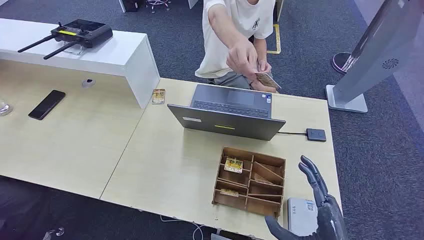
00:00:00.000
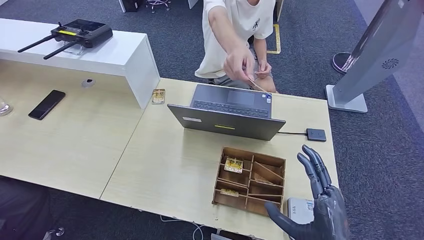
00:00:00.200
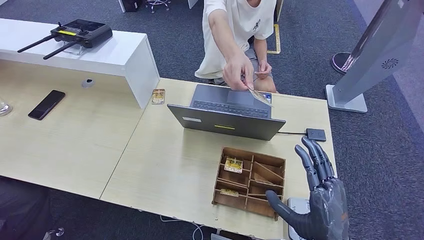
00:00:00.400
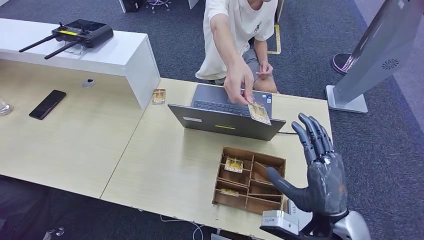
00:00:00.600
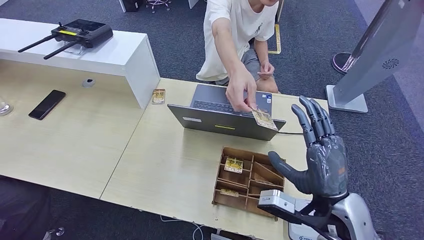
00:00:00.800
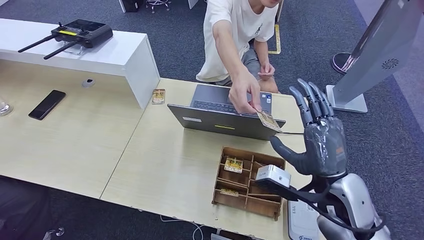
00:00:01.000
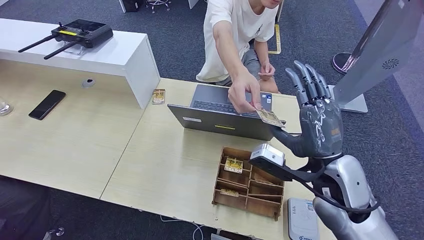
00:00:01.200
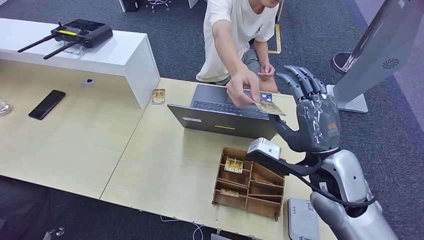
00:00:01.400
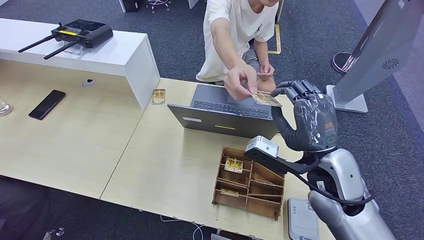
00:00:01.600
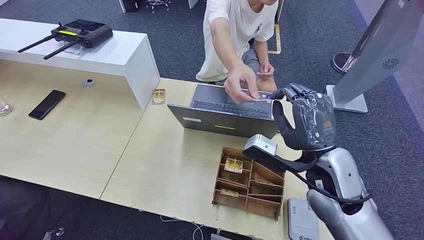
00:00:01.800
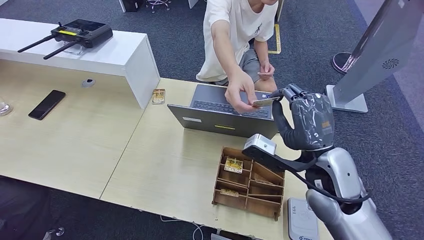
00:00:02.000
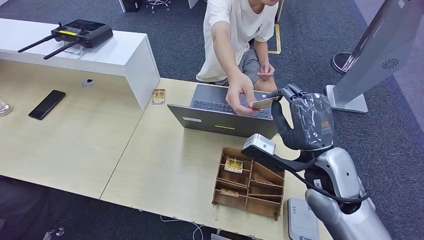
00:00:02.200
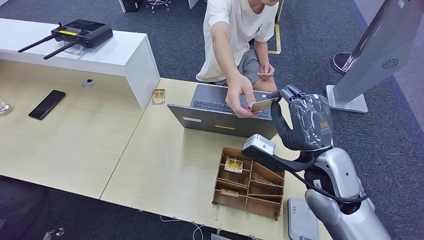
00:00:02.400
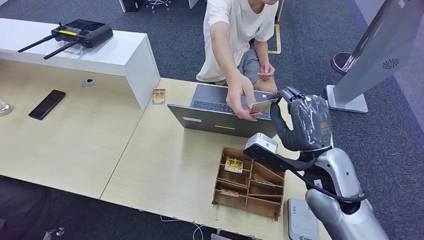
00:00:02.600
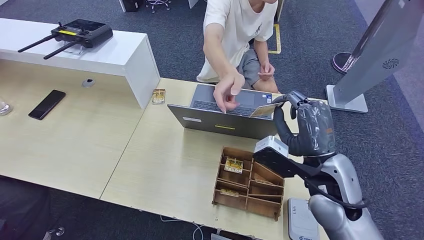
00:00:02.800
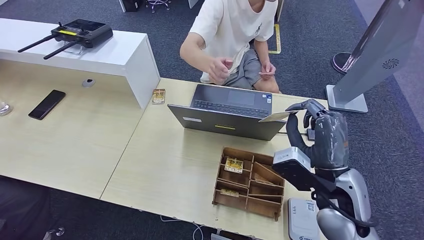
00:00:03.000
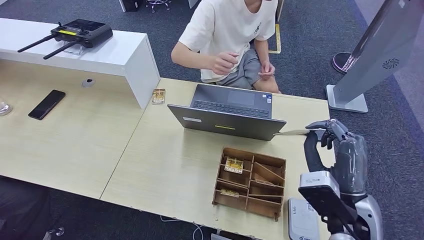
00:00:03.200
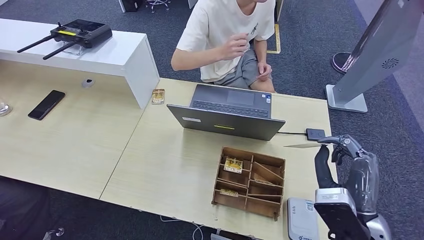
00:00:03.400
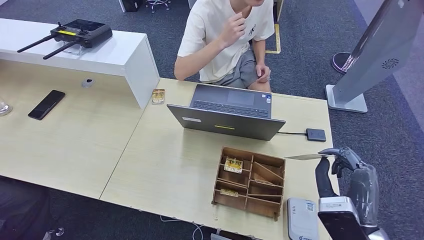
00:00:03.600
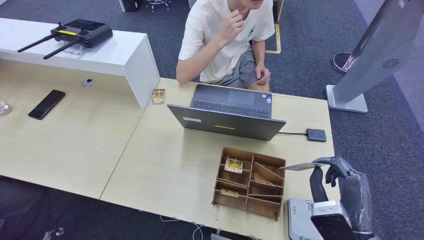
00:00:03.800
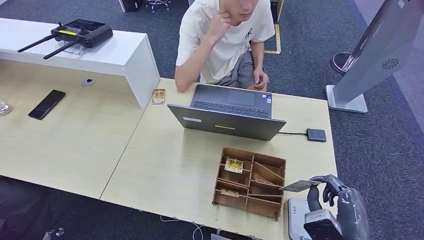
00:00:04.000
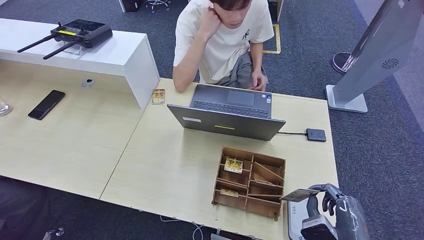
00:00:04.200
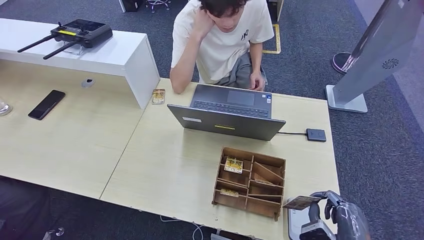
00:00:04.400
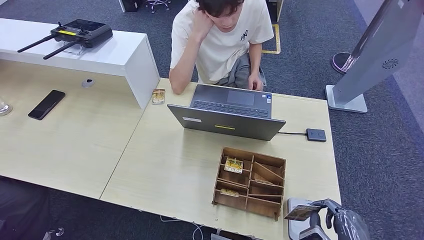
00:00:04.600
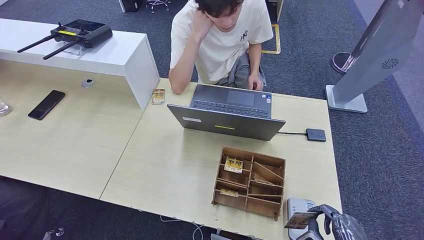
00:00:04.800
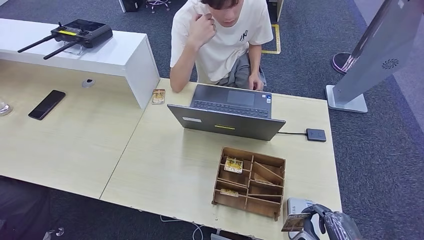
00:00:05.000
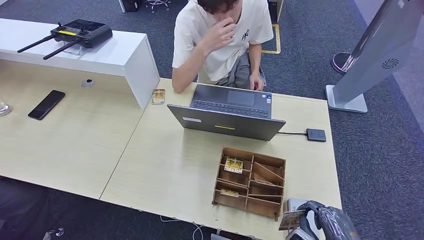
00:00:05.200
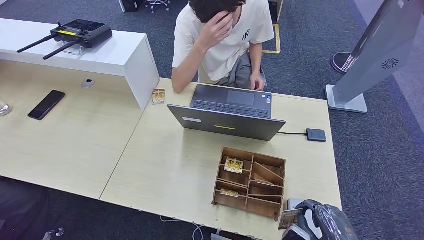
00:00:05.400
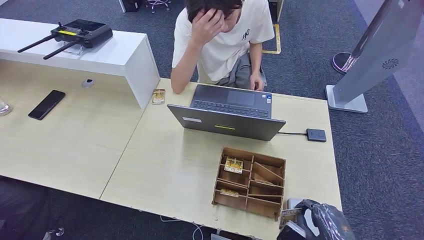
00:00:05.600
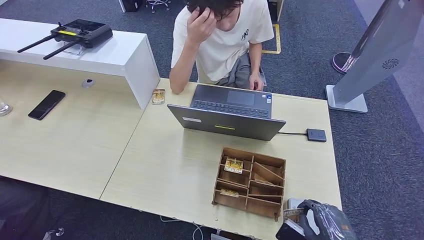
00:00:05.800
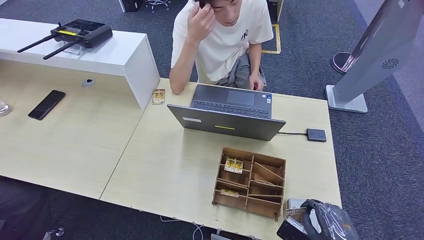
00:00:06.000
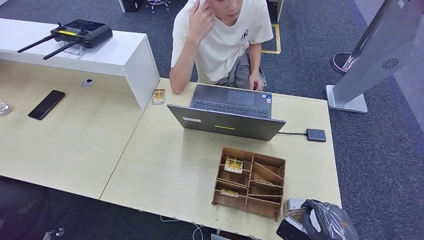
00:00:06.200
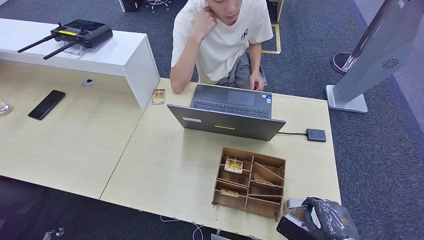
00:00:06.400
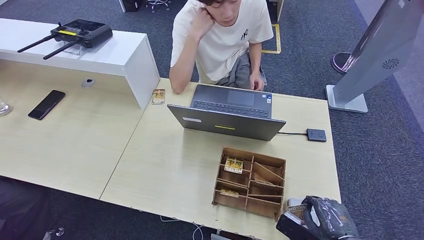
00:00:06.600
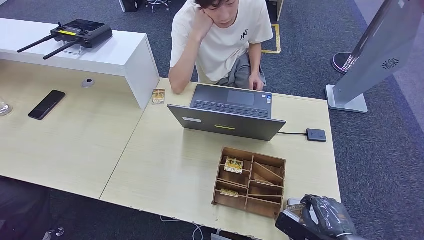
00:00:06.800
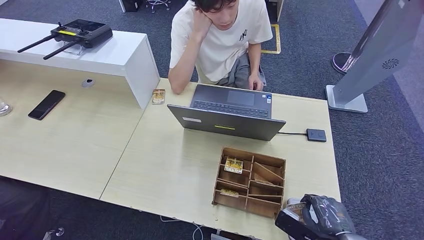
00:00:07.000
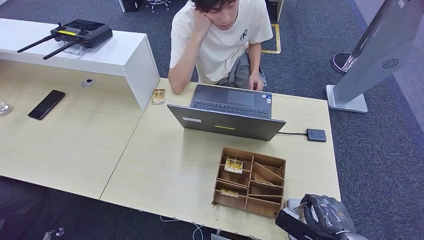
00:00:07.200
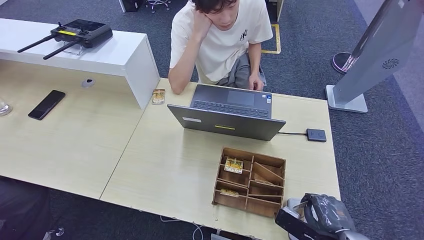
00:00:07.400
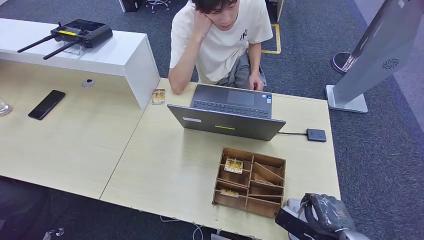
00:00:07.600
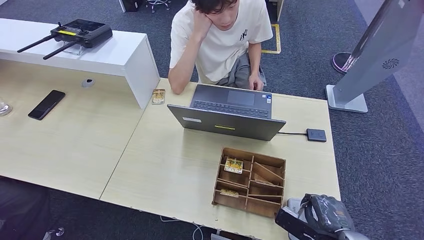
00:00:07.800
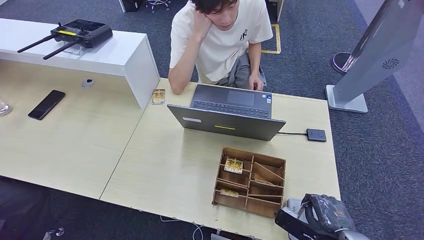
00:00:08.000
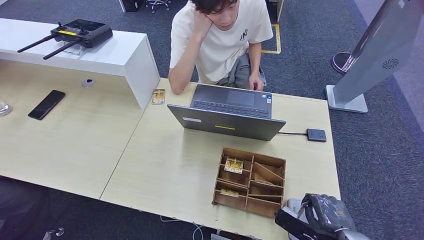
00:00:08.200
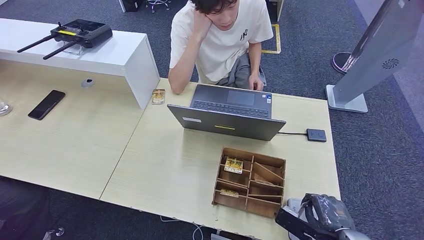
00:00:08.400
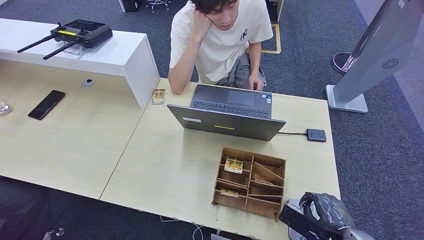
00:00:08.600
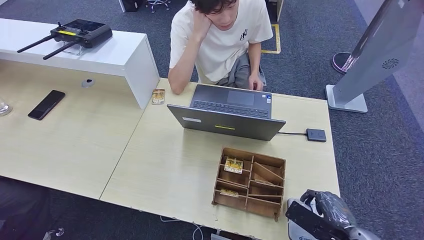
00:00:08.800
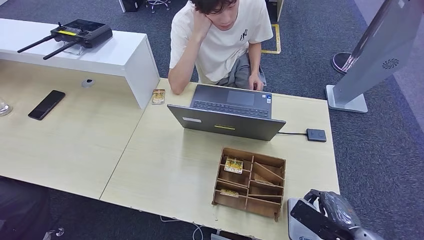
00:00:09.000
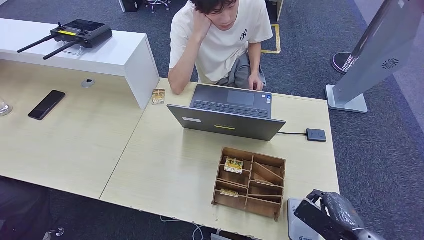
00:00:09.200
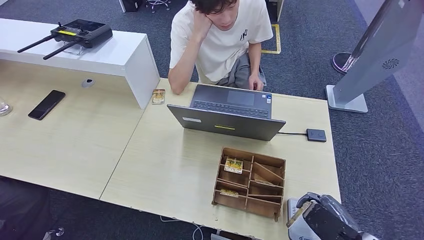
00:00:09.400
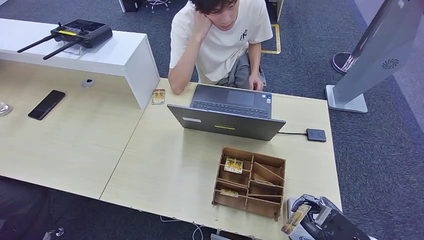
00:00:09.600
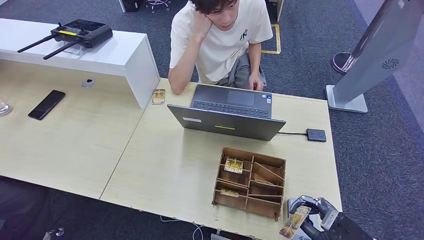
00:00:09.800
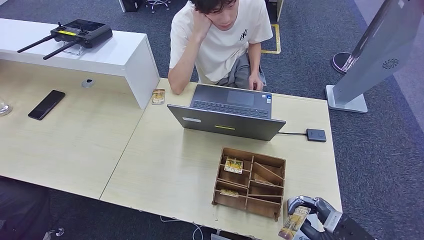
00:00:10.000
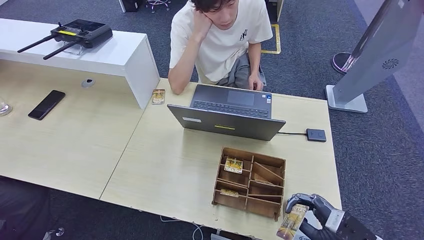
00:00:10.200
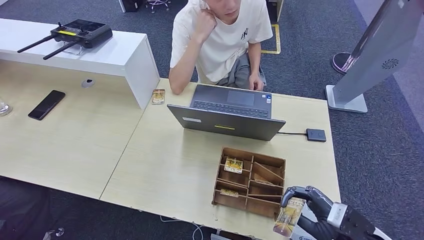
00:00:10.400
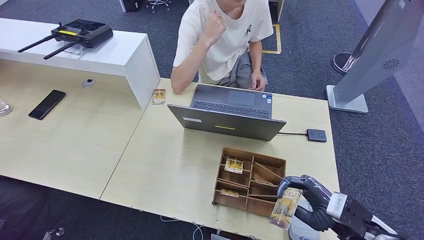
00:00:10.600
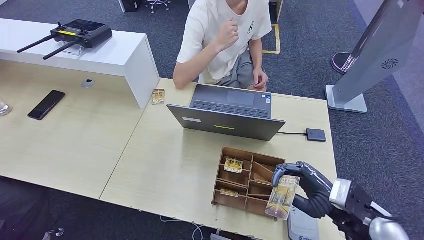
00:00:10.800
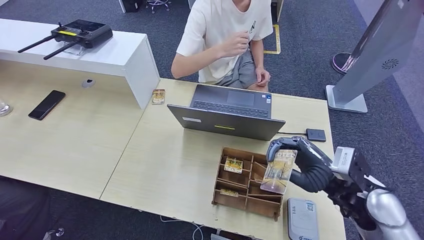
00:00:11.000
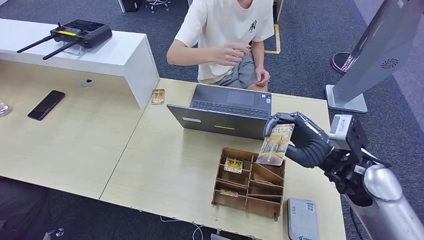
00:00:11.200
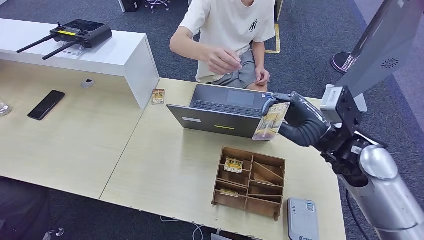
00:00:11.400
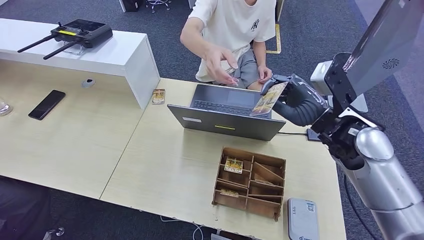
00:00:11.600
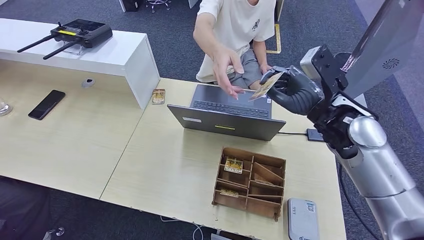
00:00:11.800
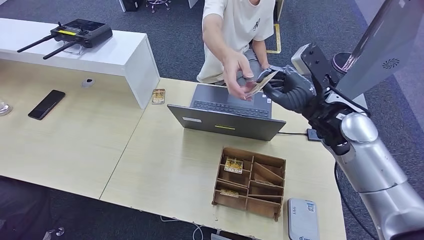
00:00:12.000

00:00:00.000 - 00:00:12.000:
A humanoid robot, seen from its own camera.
Step, 00:00:00.000 - 00:00:03.000: Take the ID card from the person's hand.
Step, 00:00:03.200 - 00:00:08.200: Place the ID card on the card reader.
00:00:01.600 - 00:00:03.000: The hands move only a little.
00:00:03.000 - 00:00:04.400: The right hand travels backward, downward and to the right by approximately 20 cm.
00:00:04.400 - 00:00:06.000: The right hand ends up about 5 cm from where it was.
00:00:06.000 - 00:00:09.000: The hands stay close to where they were, moving slightly.
00:00:10.400 - 00:00:12.000: The right hand shifts approximately 30 cm forward, upward and to the left.

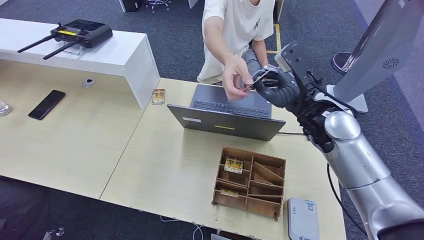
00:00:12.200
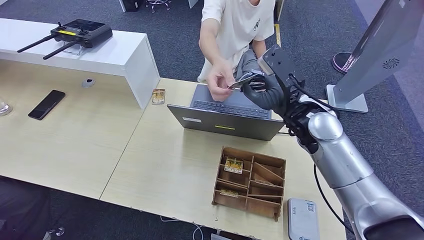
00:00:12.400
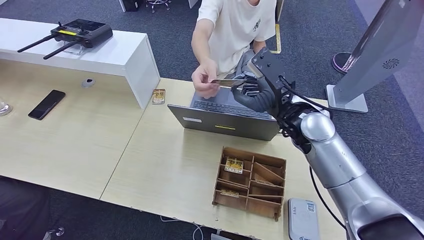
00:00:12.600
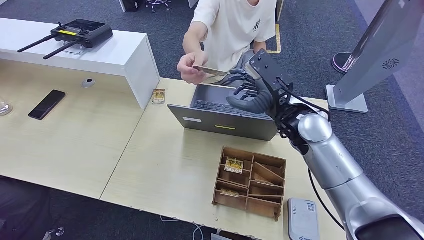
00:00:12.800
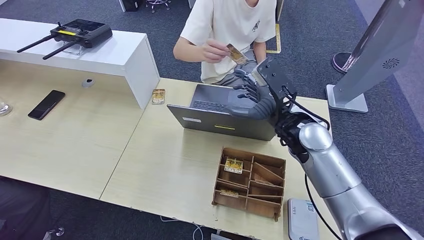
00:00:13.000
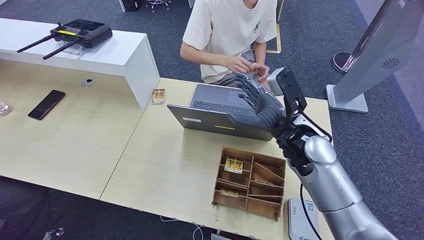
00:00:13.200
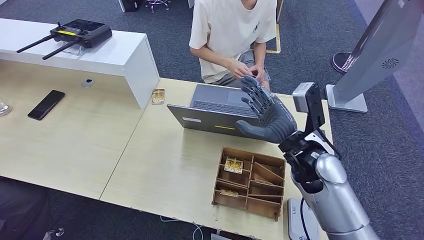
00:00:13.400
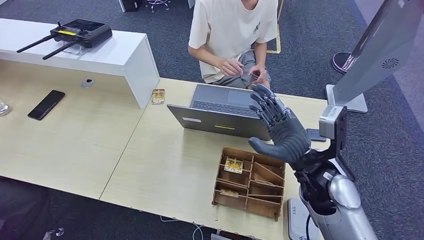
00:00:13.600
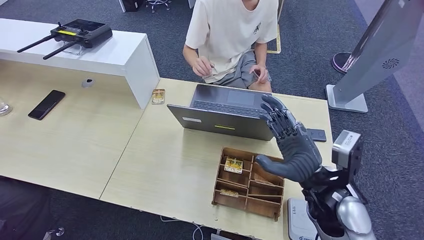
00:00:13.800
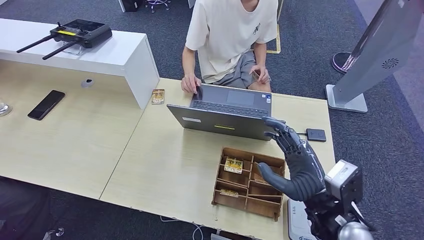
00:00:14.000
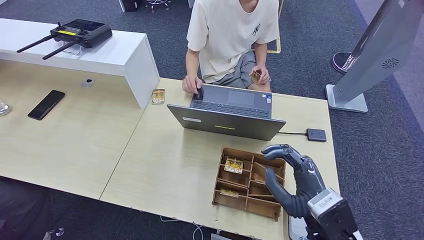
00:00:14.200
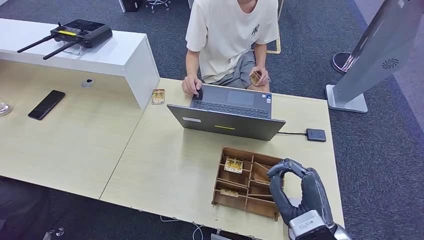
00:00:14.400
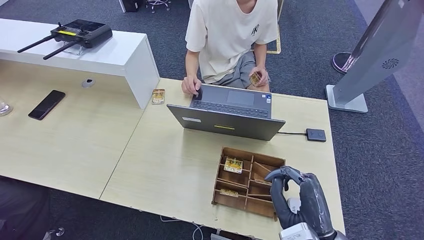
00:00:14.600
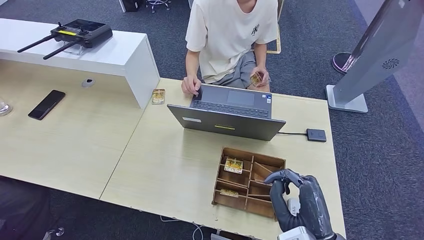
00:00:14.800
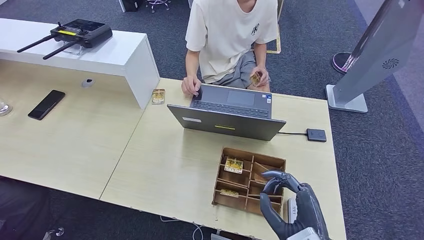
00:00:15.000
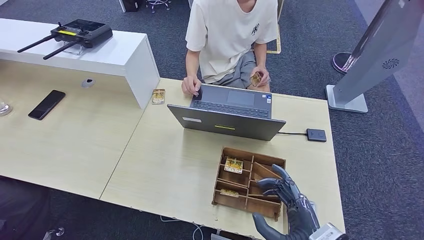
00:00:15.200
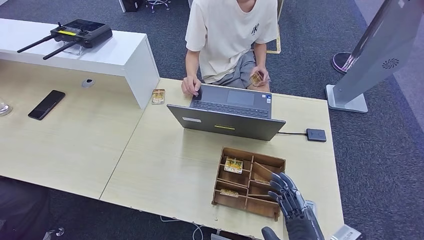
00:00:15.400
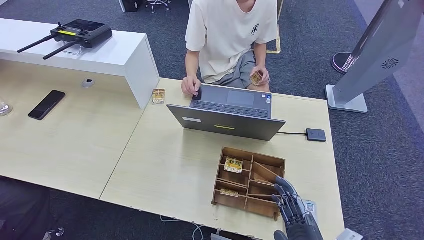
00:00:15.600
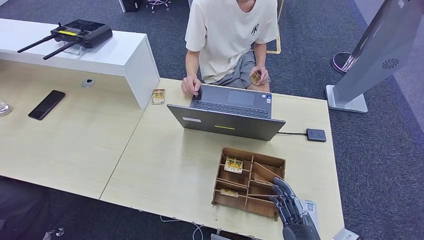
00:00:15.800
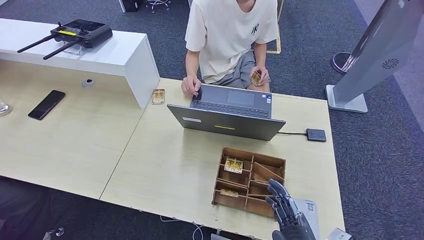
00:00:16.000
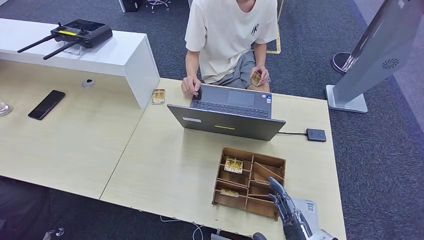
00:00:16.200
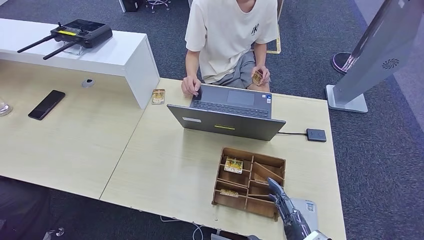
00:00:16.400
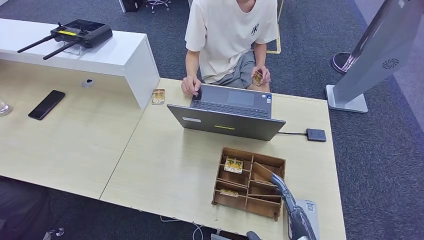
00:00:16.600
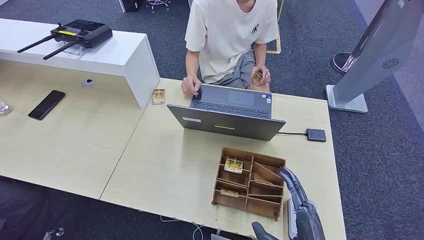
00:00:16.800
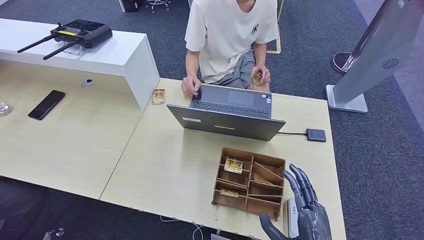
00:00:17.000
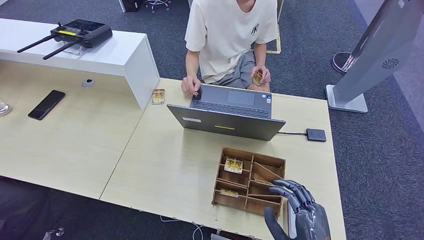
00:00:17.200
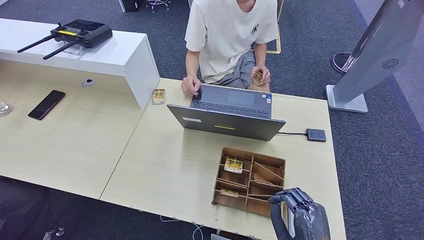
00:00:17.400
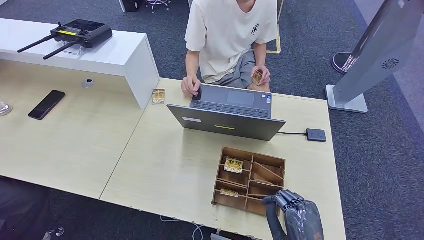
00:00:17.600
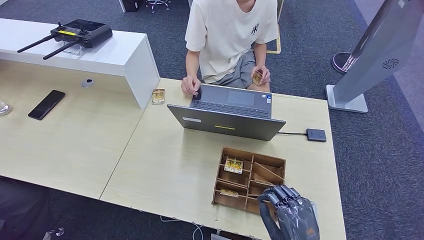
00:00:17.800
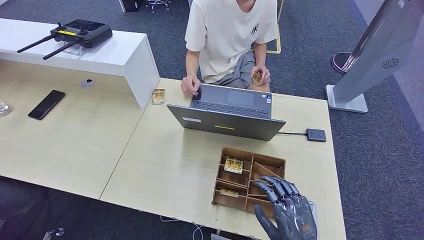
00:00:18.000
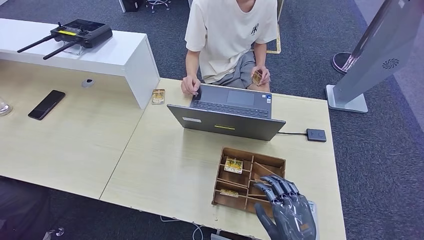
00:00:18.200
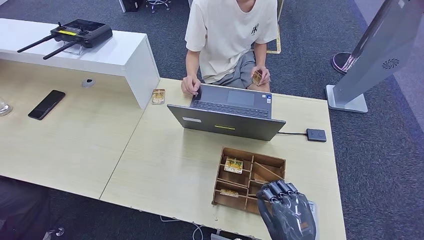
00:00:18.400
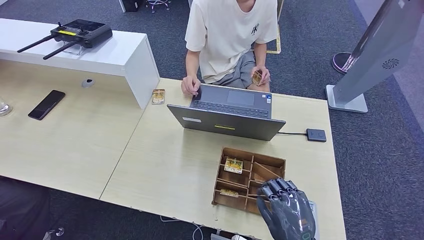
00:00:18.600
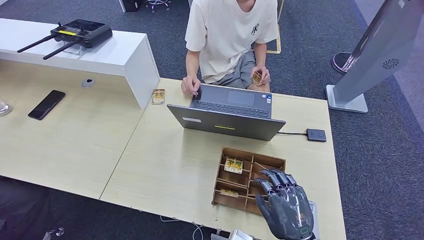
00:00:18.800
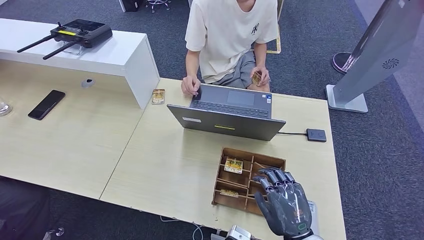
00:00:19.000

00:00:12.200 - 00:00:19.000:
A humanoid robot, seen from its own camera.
00:00:12.200 - 00:00:13.600: The right hand shifts approximately 15 cm backward and downward.
00:00:13.600 - 00:00:15.000: The right hand shifts approximately 15 cm backward.
00:00:15.000 - 00:00:16.200: The right hand heads downward, covering some 5 cm.
00:00:17.600 - 00:00:19.000: The hands move only a little.
